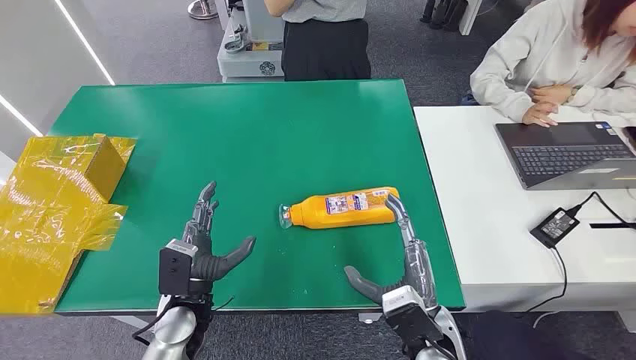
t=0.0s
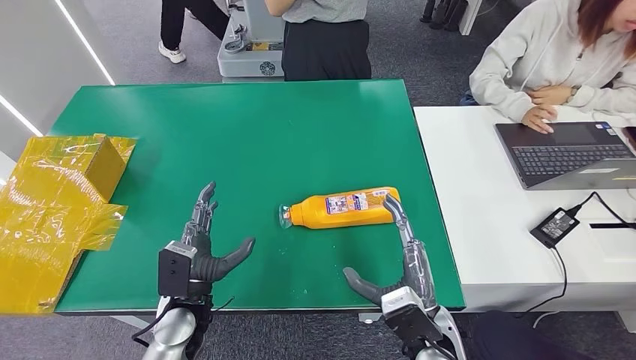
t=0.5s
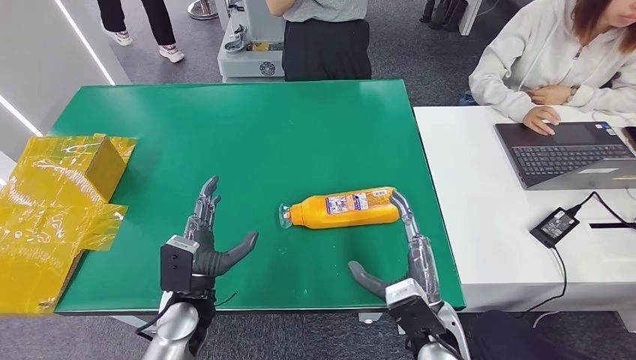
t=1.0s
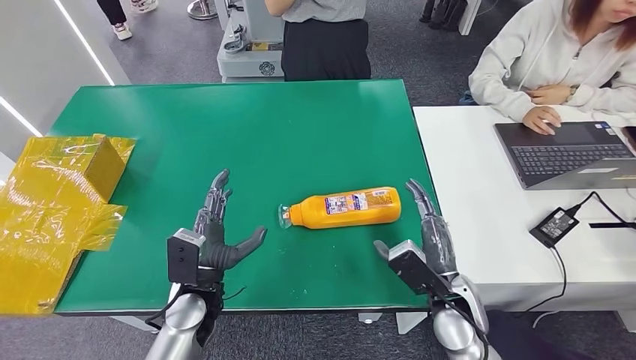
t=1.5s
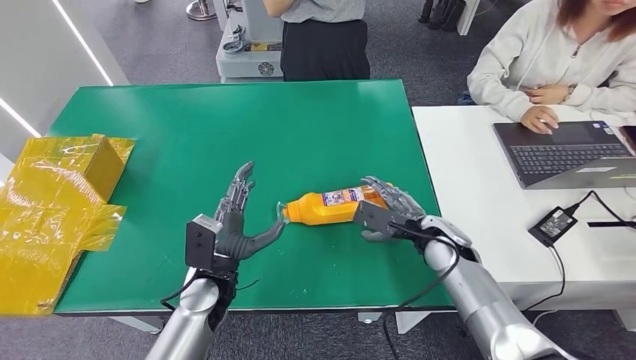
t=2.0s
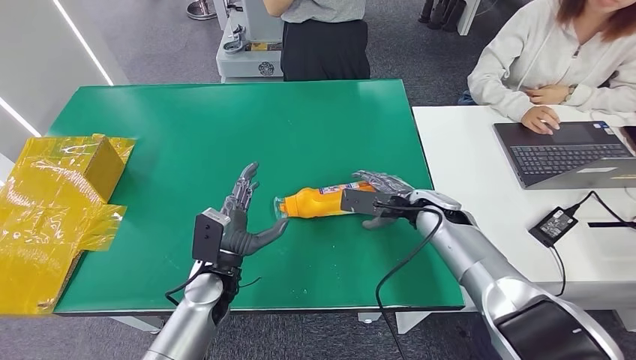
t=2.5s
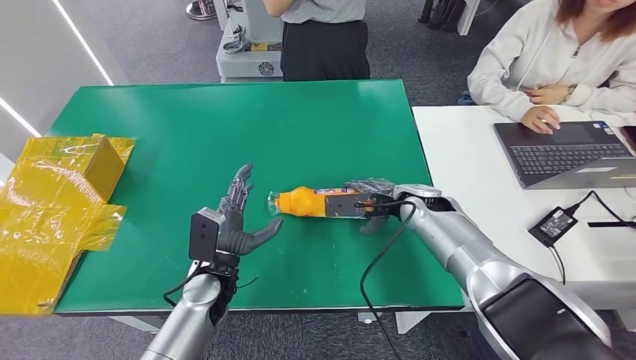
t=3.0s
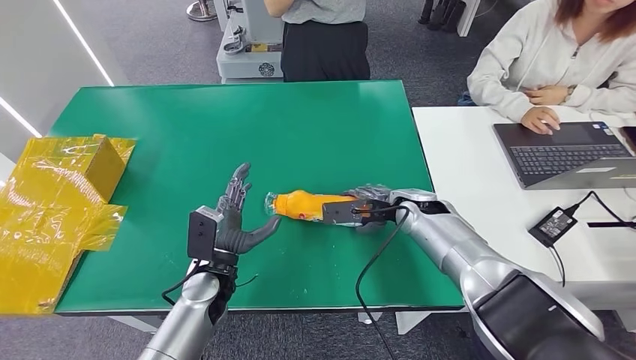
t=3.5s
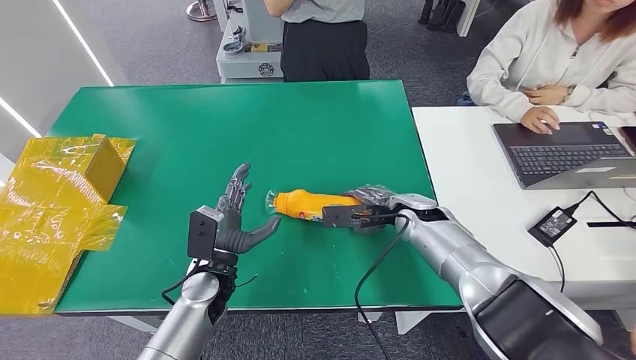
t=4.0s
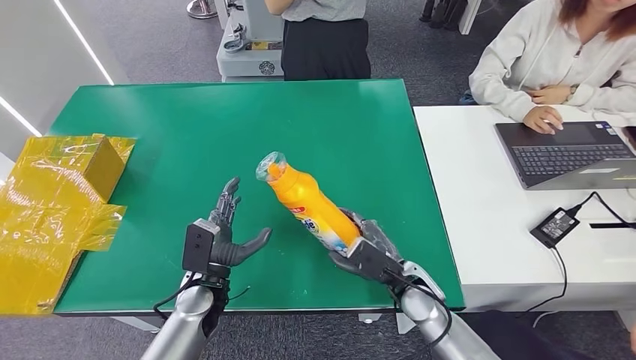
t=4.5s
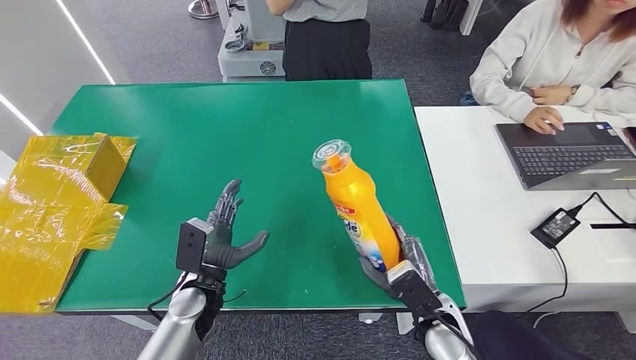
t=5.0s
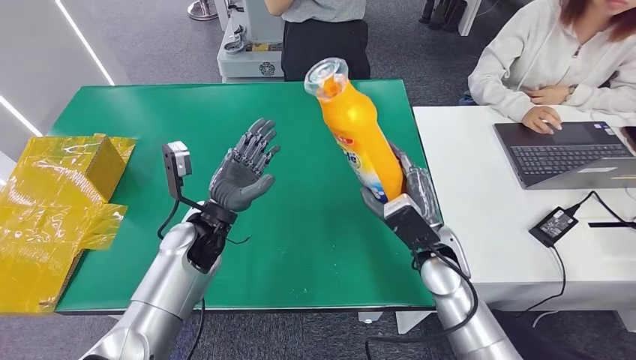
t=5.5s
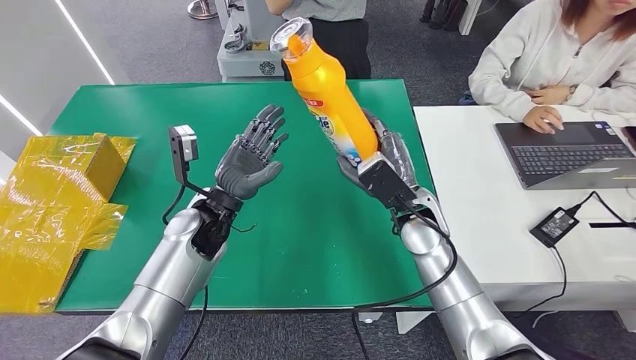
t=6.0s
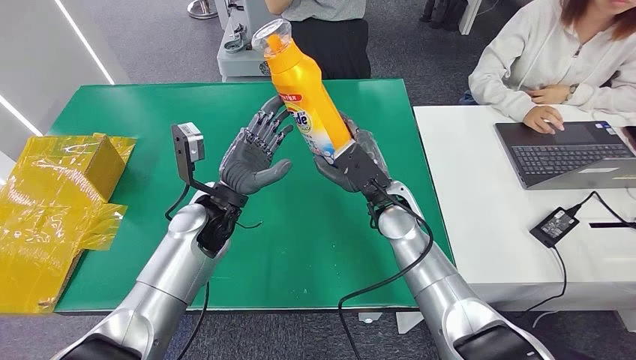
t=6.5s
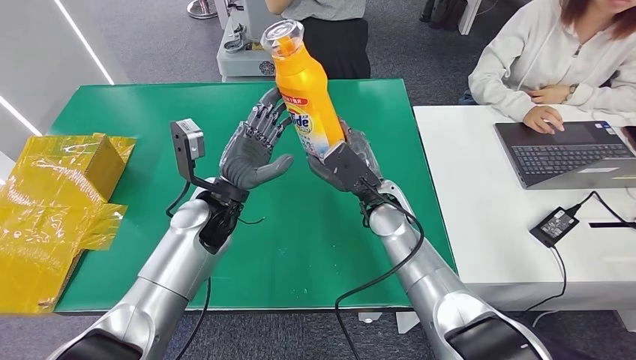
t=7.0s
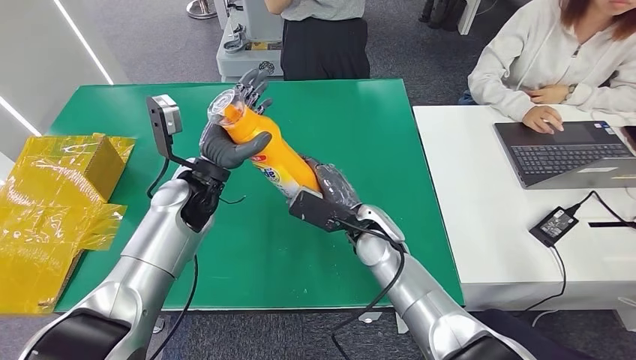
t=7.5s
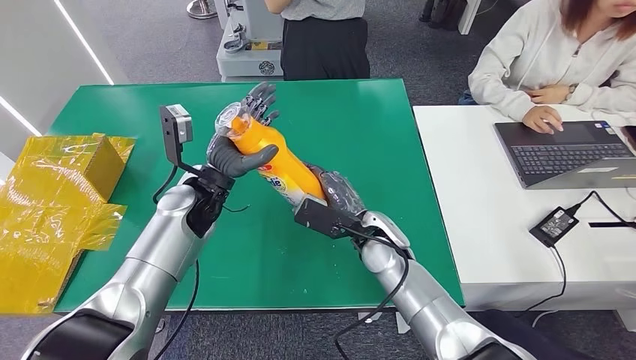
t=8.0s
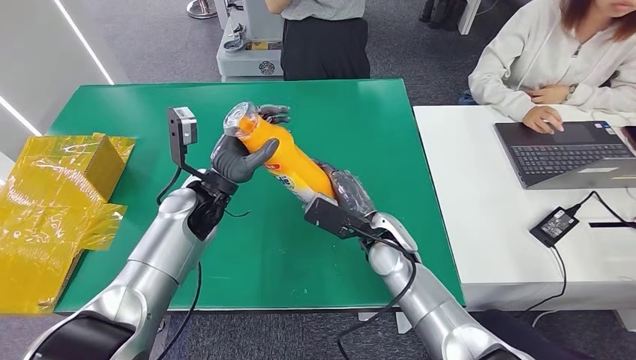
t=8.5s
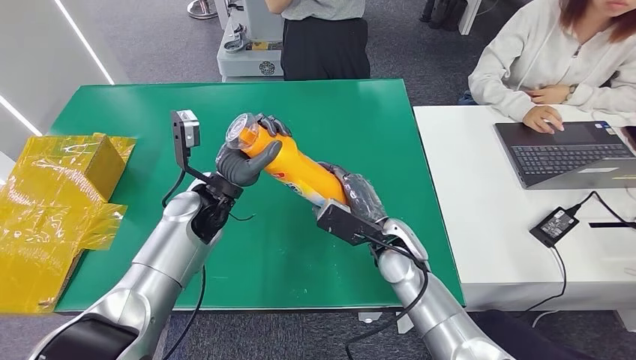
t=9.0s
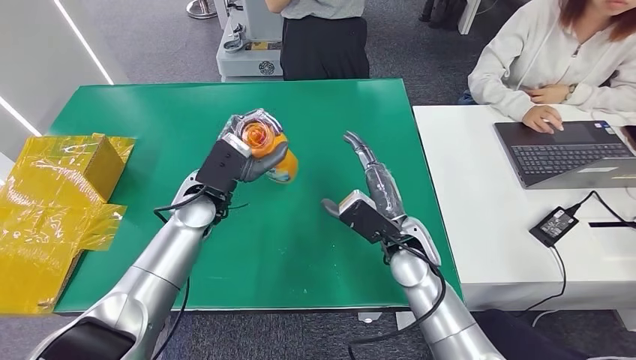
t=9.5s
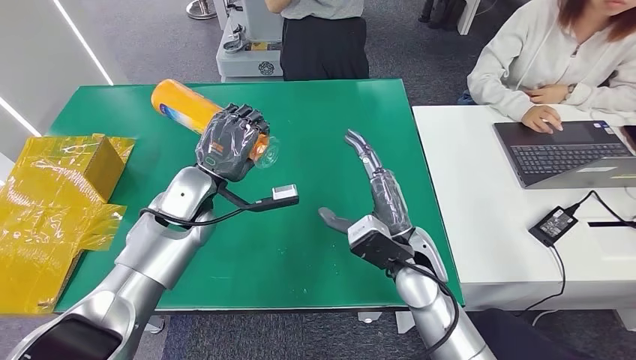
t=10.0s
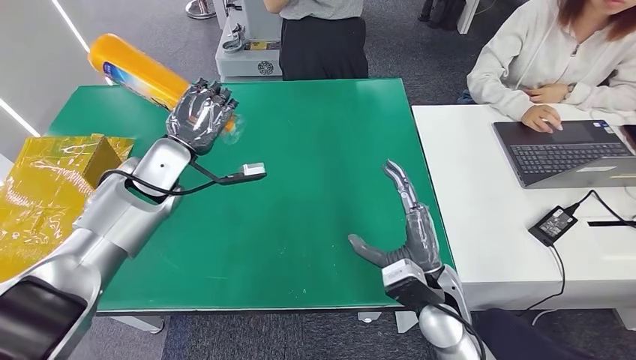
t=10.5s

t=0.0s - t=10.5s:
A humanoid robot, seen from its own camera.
Step, t=0.0s - t=5.0s: Pick up the bottle from the table.
t=2.0s - t=4.0s: The right hand moves forward, roughly 5 cm.

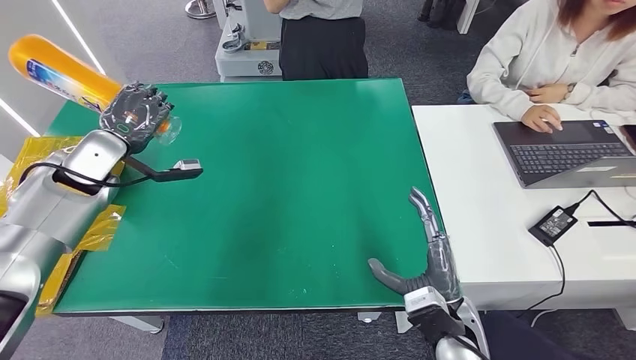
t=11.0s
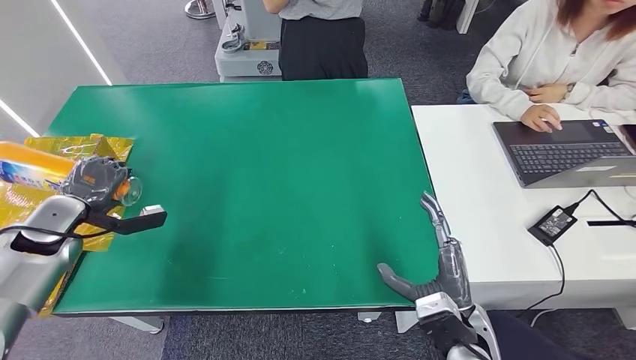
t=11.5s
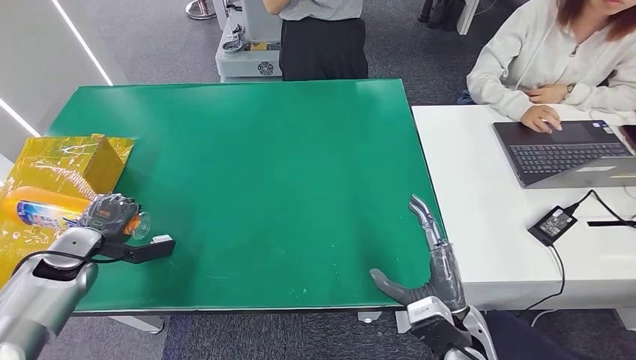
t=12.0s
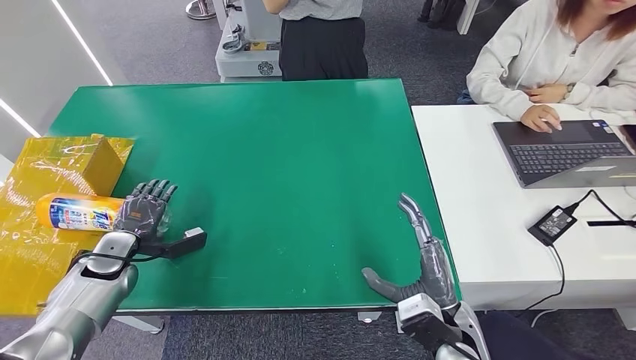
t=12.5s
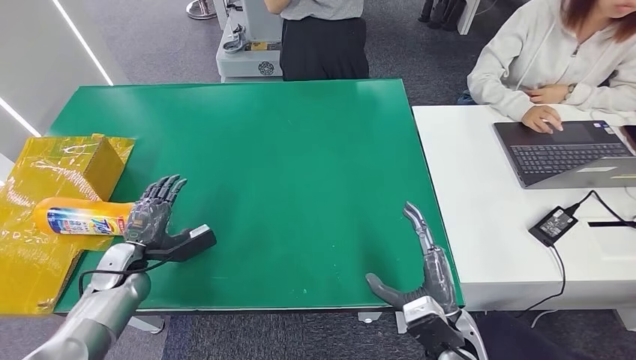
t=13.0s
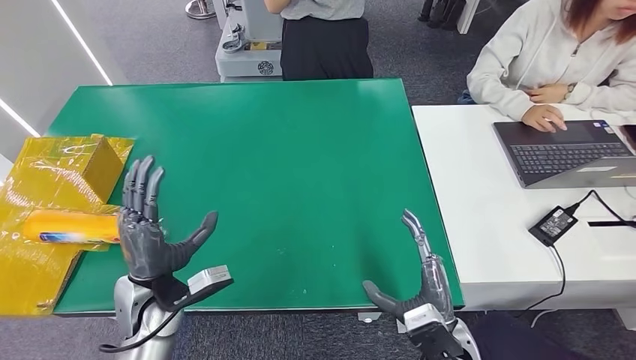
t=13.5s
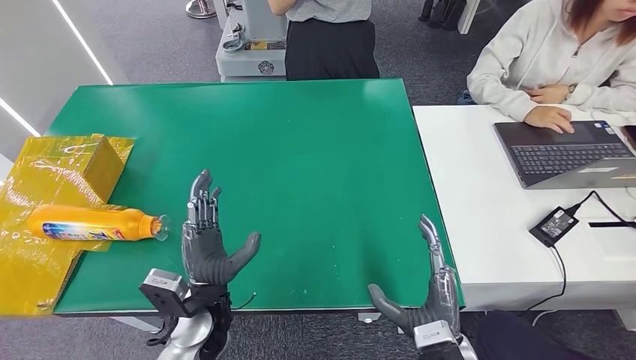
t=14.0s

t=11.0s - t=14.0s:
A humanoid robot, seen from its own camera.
Step, t=11.0s - t=14.0s: Turn the bottle to the front side.
t=11.0s - t=12.5s: The left hand is displaced downward and backward by roughly 20 cm.
t=12.5s - t=14.0s: The left hand shifts about 25 cm to the right and backward.
